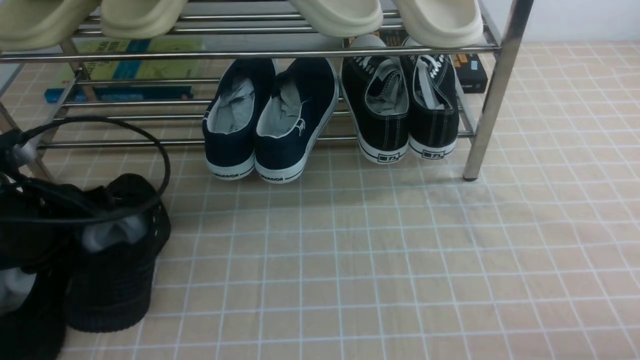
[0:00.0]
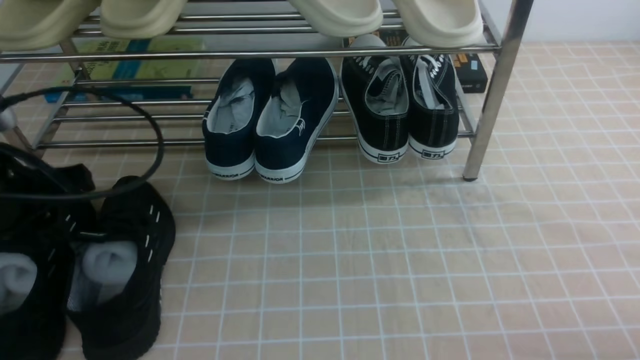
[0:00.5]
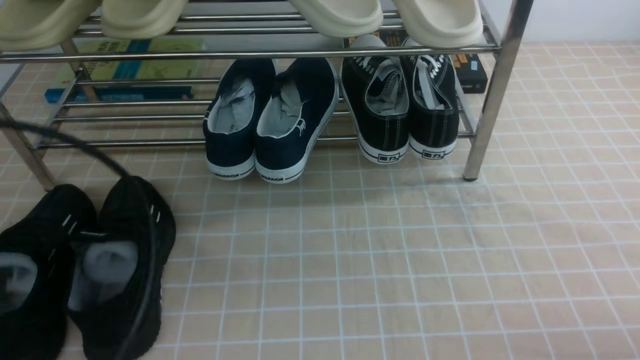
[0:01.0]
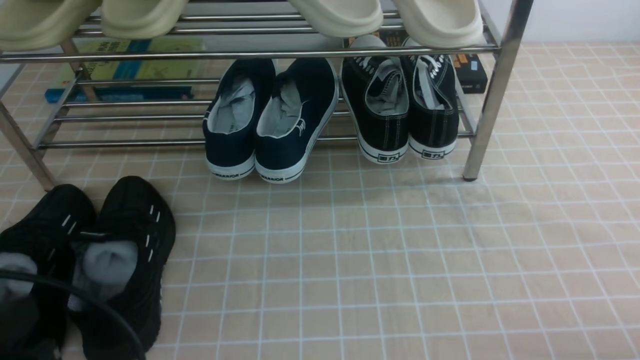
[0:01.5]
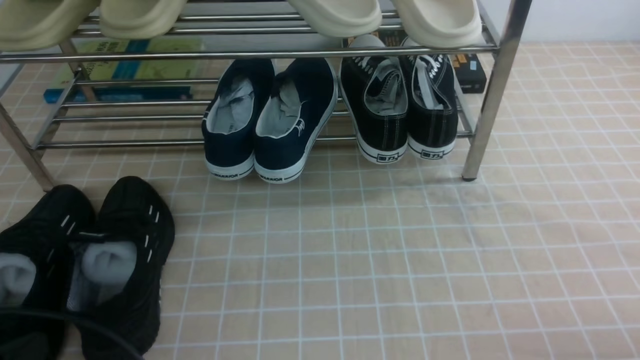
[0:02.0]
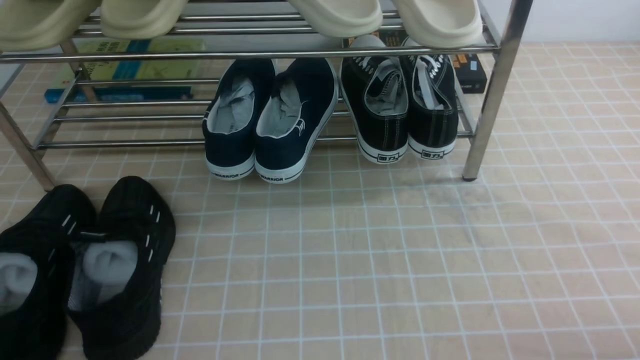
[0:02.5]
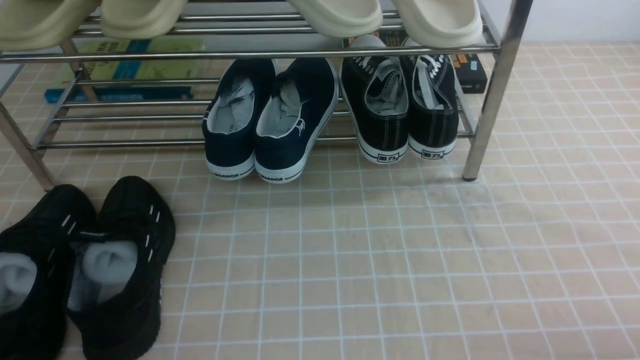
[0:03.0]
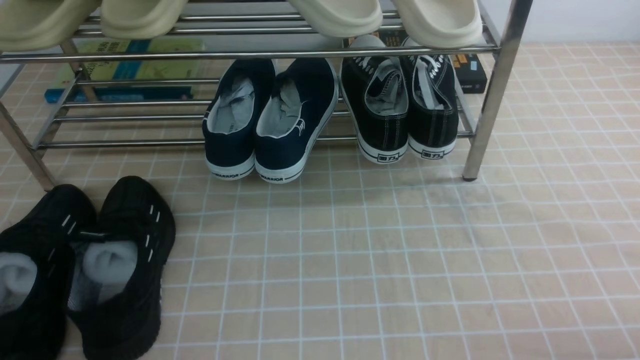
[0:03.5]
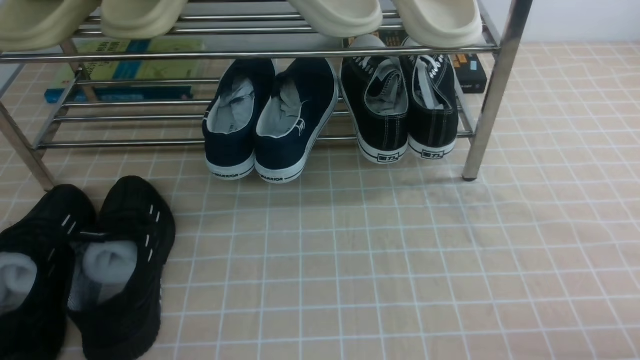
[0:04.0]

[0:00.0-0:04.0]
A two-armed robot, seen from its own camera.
0:00.0 to 0:02.0: The left gripper is displaced backward by some 20 cm, and opens and closes again.
